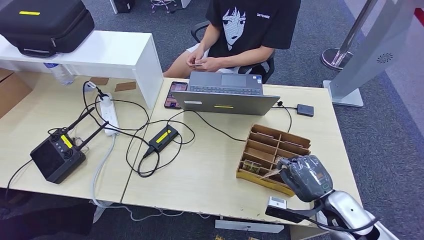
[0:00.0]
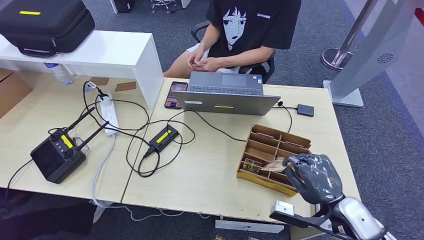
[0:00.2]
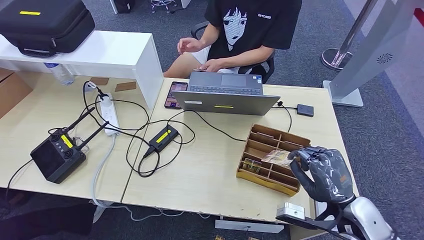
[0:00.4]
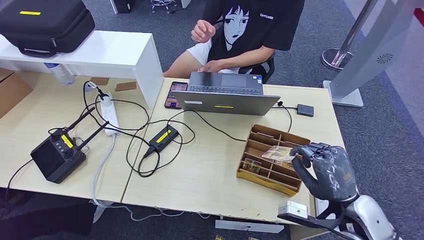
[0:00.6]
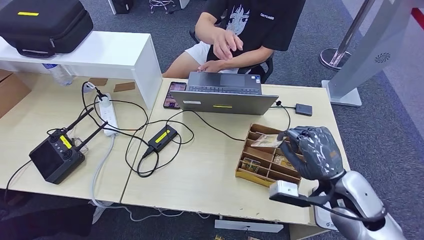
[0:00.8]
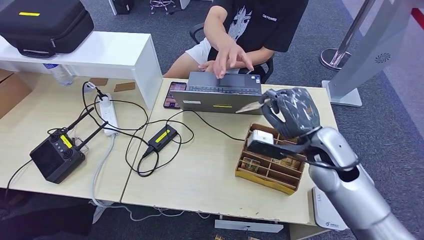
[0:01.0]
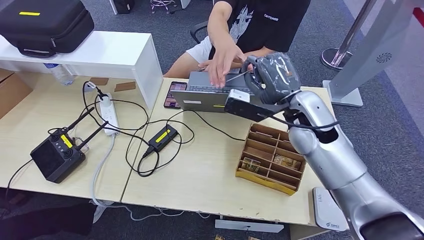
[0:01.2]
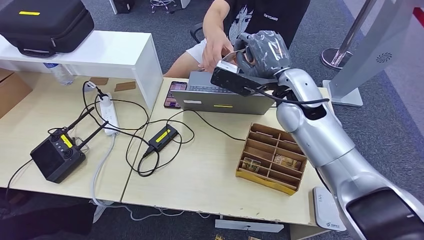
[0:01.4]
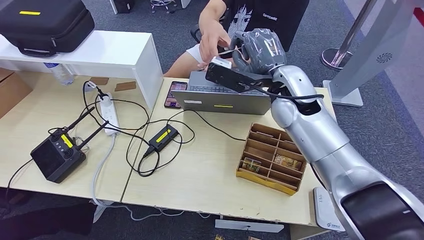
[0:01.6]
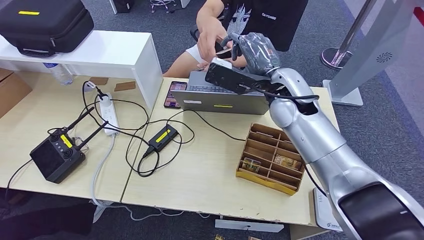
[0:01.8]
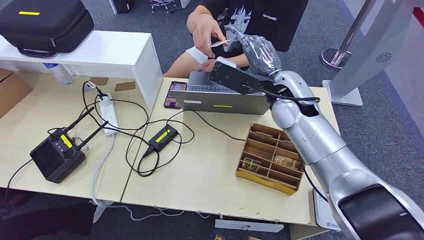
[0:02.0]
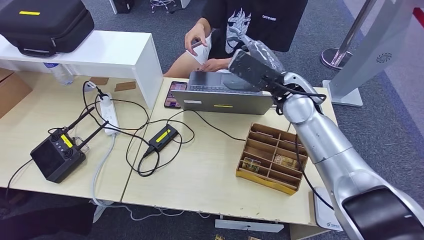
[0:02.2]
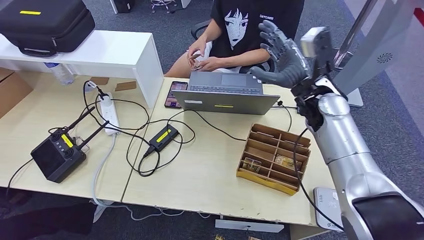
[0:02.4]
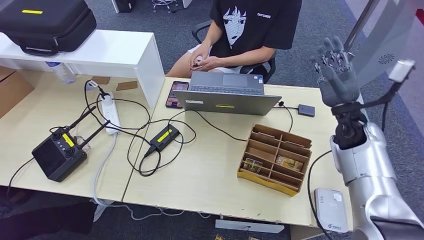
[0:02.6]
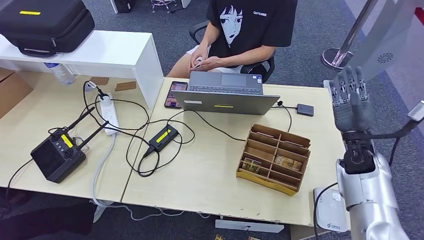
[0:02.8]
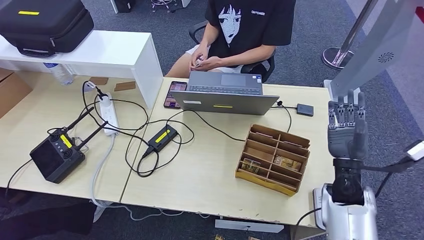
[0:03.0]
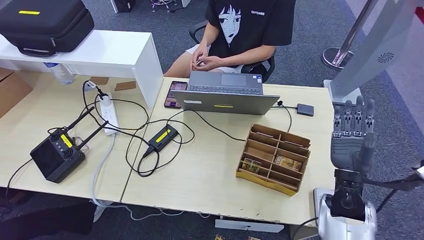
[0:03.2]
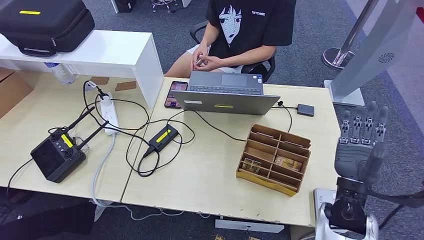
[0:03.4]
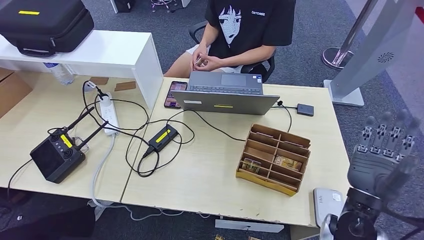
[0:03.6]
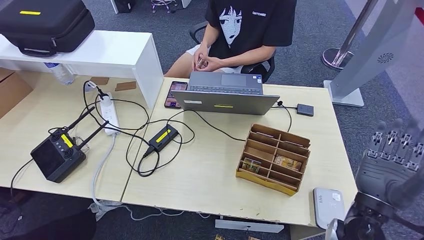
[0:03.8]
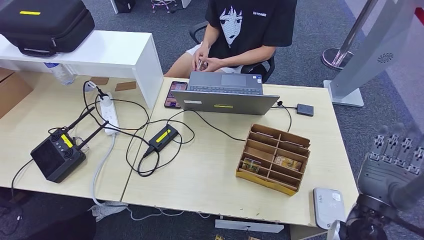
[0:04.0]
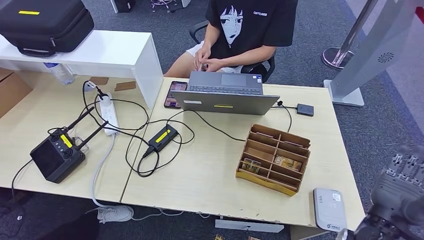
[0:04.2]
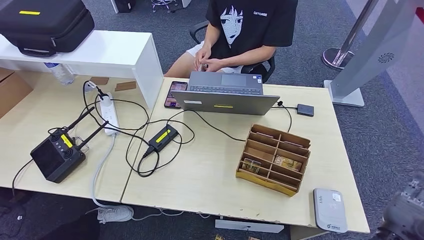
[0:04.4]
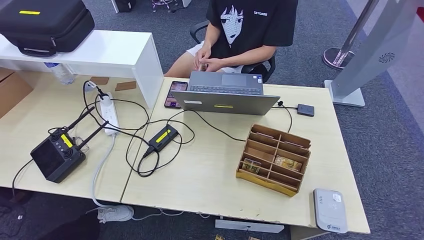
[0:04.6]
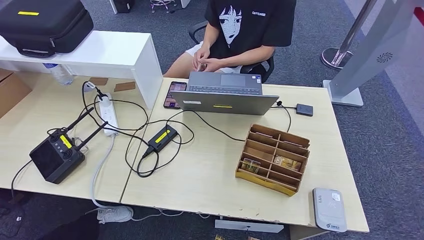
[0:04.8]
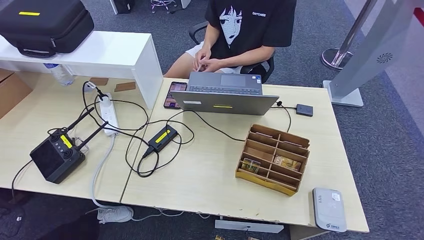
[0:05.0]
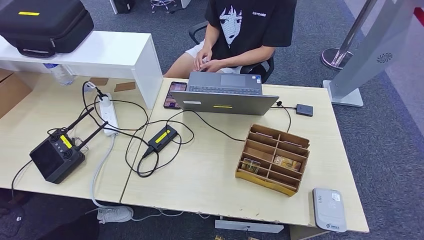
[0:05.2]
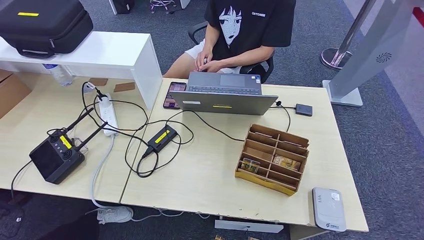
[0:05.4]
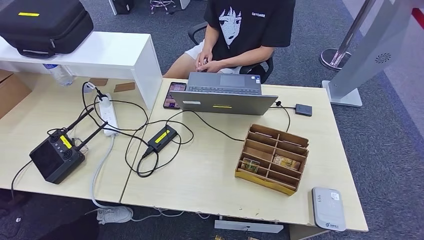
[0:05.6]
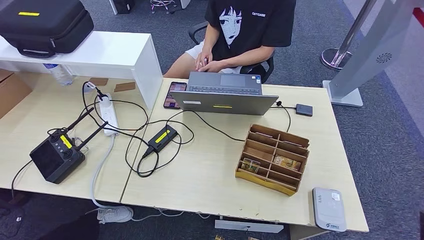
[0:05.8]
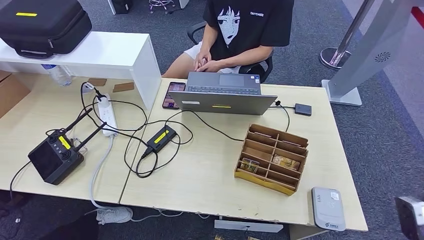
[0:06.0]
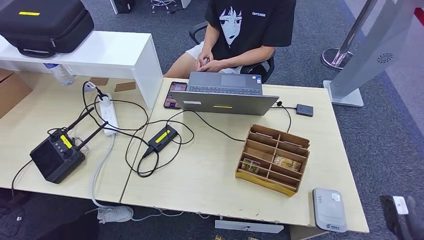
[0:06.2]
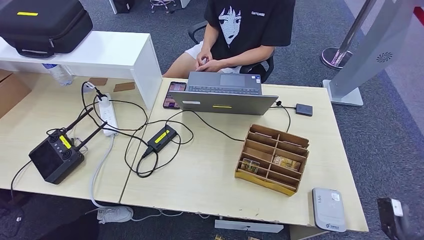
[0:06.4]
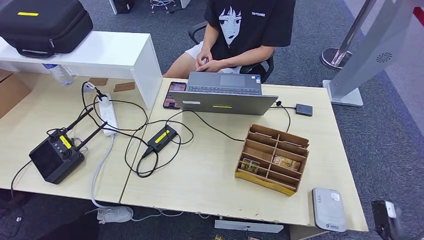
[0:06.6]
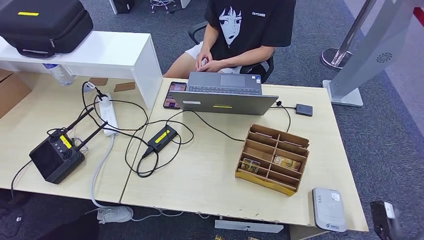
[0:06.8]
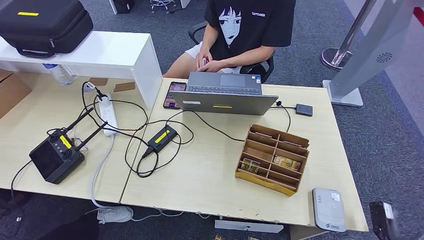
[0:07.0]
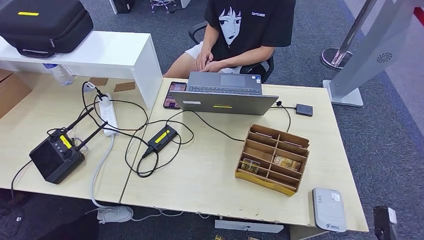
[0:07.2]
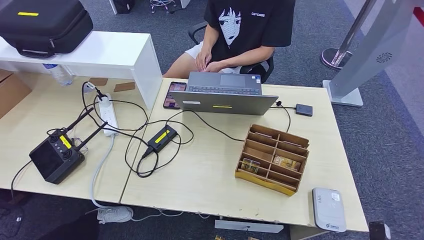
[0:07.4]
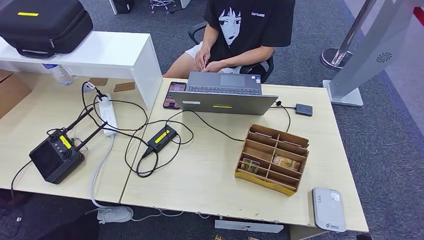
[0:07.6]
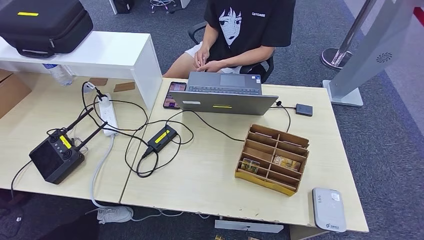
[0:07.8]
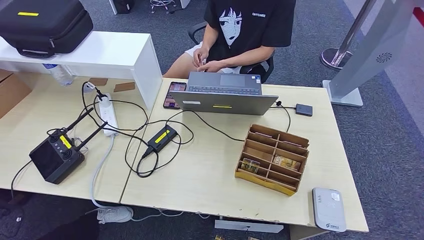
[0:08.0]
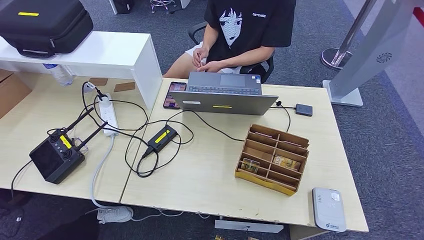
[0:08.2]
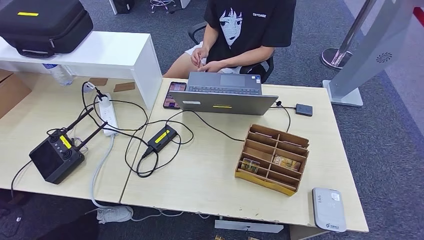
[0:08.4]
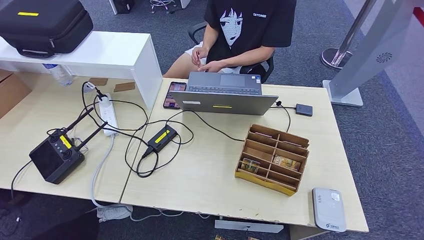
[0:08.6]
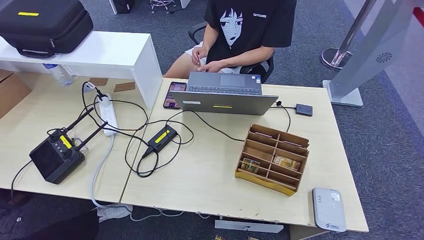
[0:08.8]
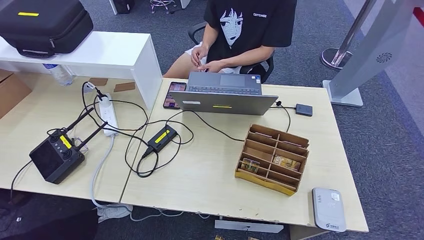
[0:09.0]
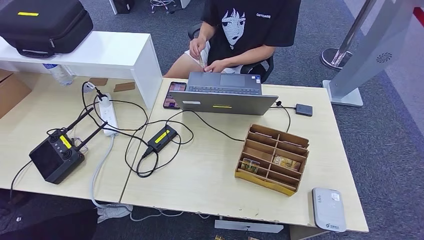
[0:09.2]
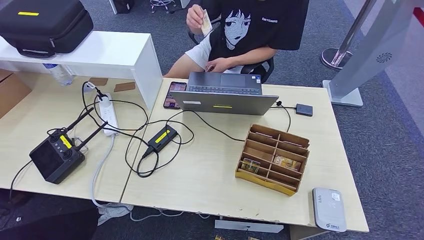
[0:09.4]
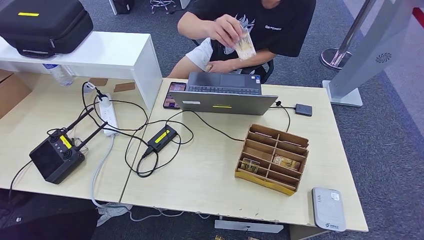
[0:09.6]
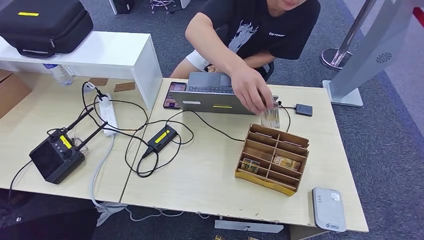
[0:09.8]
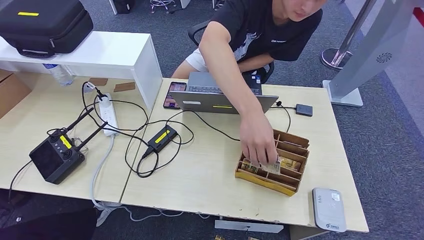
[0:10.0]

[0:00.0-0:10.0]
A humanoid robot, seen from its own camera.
Step, 0:00.4 to 0:10.0: Hand the room key to the person.
0:00.0 to 0:01.4: The right hand goes about 30 cm upward, forward and to the left.
0:01.4 to 0:02.8: The right hand is displaced to the right and downward by approximately 25 cm.
0:02.8 to 0:04.2: The right hand goes about 20 cm backward.
0:04.2 to 0:05.8: The right hand moves to the right and backward, some 15 cm.
0:05.8 to 0:07.2: The right hand is displaced downward by approximately 15 cm.
0:07.2 to 0:08.6: The right hand travels downward and backward by roughly 10 cm.
0:08.6 to 0:10.0: The right hand moves to the left, roughly 10 cm.
